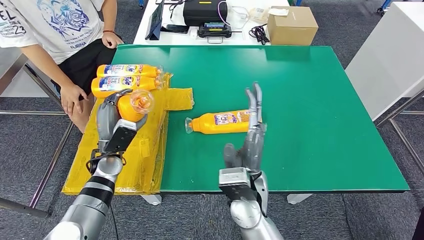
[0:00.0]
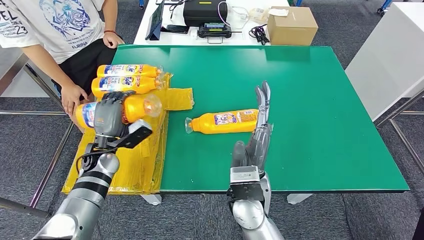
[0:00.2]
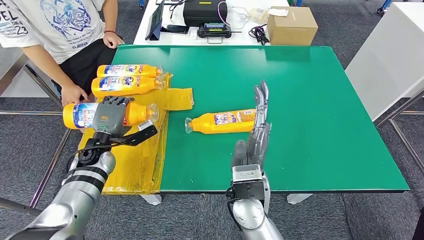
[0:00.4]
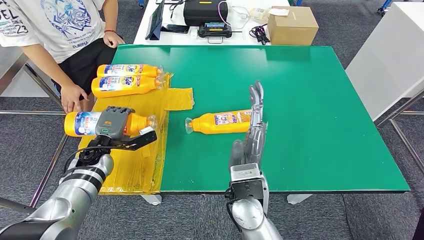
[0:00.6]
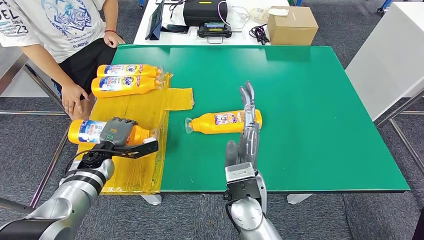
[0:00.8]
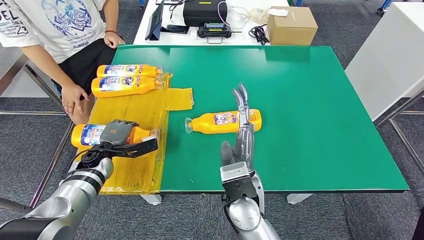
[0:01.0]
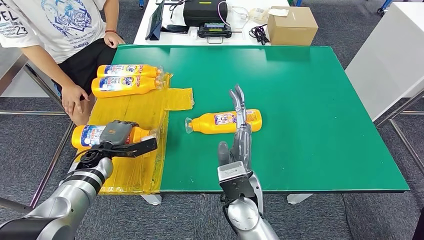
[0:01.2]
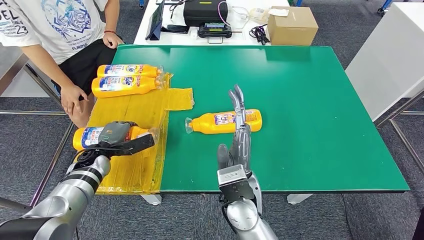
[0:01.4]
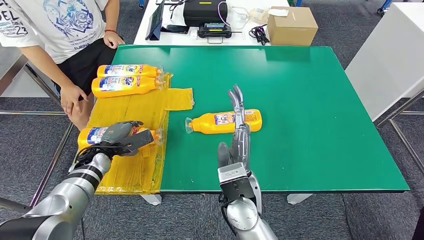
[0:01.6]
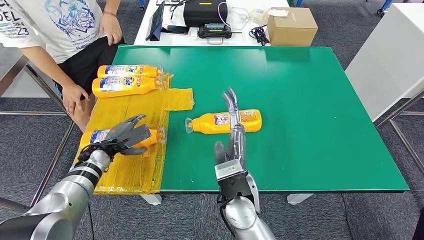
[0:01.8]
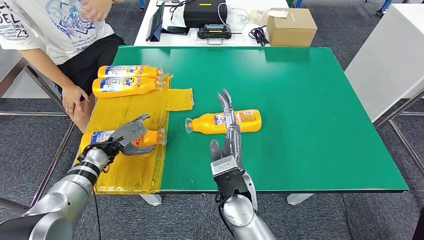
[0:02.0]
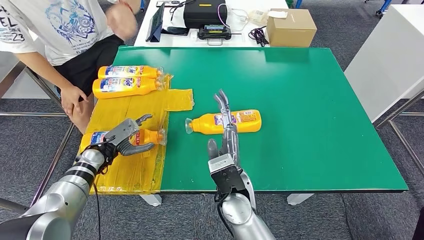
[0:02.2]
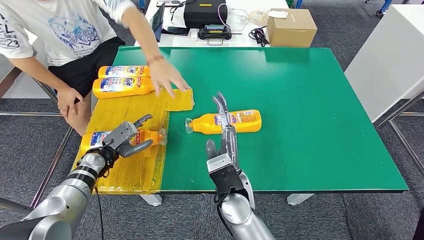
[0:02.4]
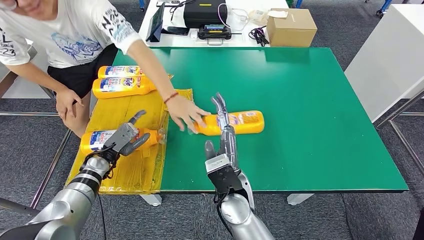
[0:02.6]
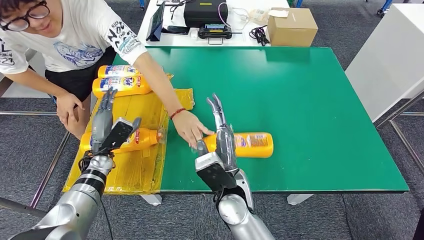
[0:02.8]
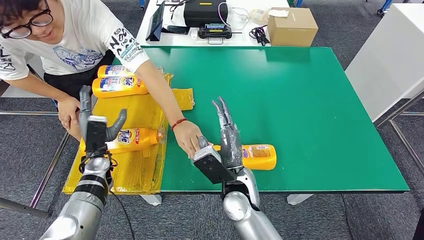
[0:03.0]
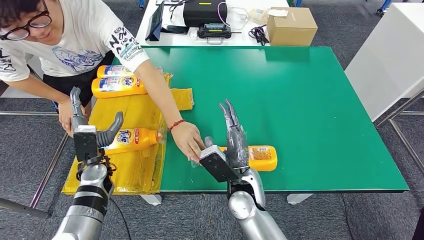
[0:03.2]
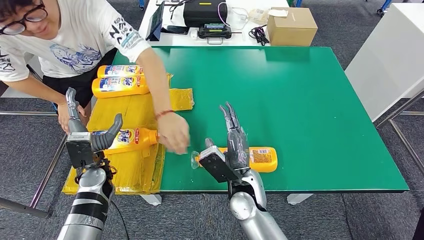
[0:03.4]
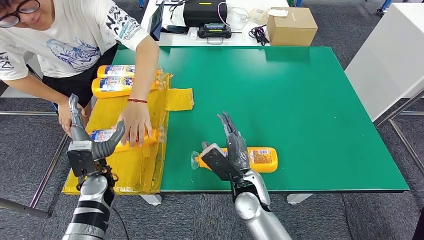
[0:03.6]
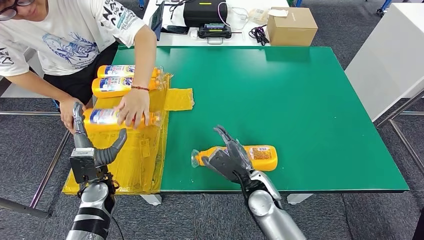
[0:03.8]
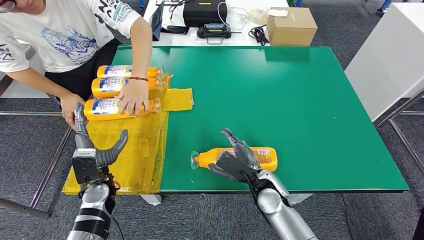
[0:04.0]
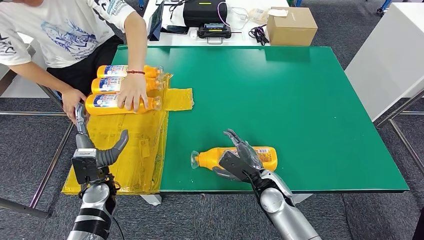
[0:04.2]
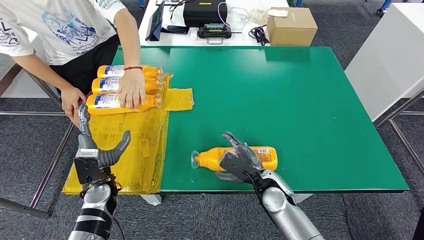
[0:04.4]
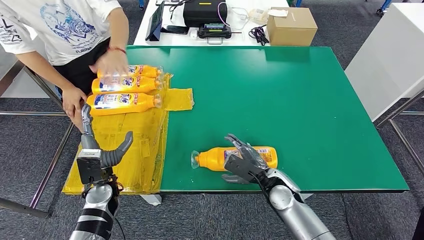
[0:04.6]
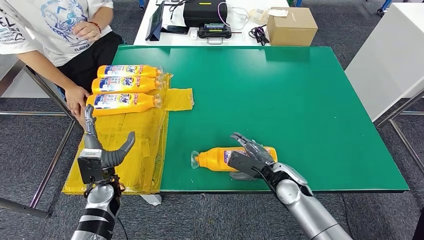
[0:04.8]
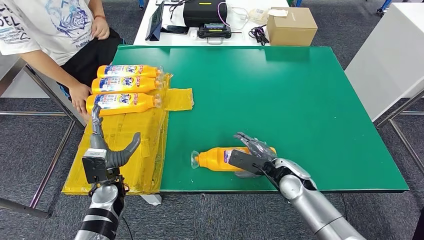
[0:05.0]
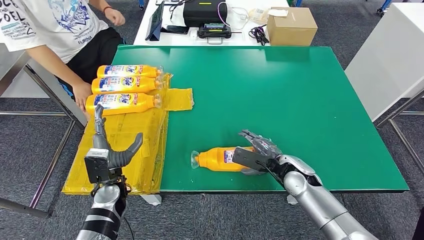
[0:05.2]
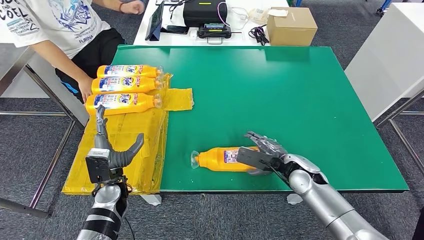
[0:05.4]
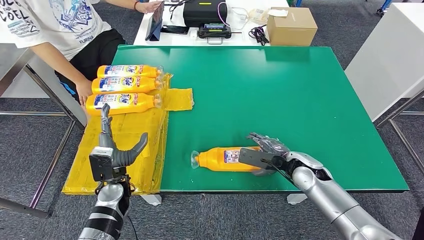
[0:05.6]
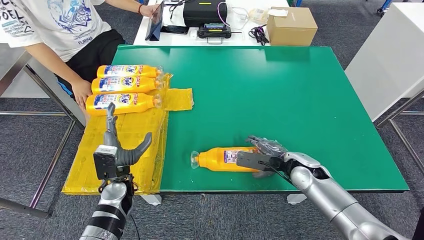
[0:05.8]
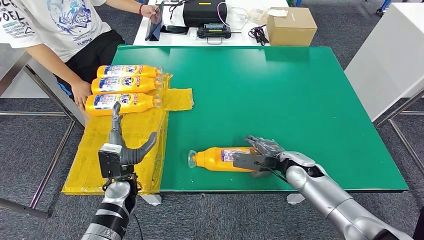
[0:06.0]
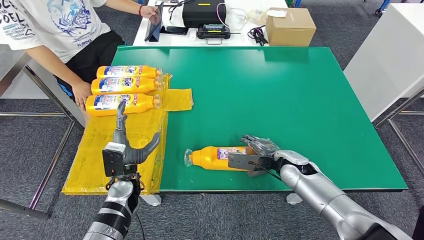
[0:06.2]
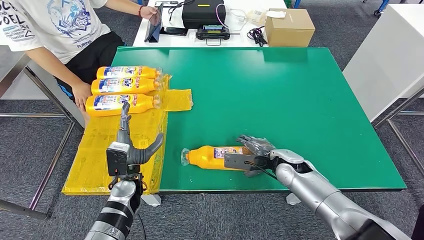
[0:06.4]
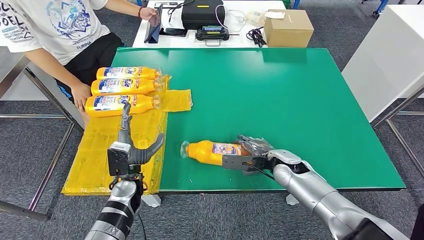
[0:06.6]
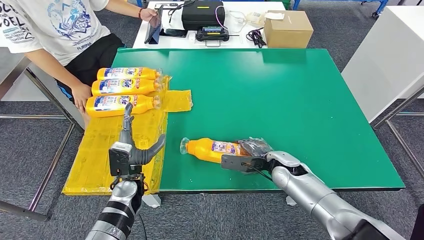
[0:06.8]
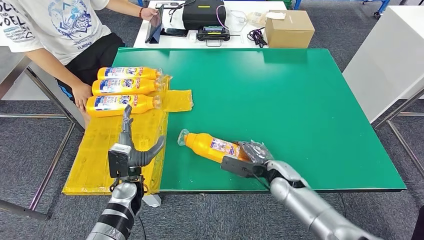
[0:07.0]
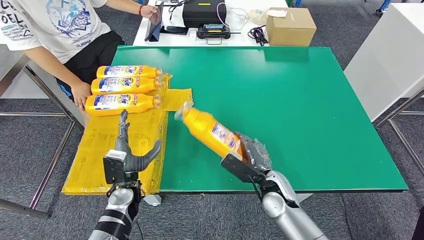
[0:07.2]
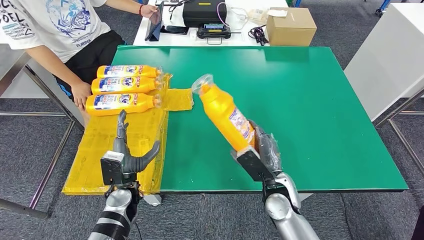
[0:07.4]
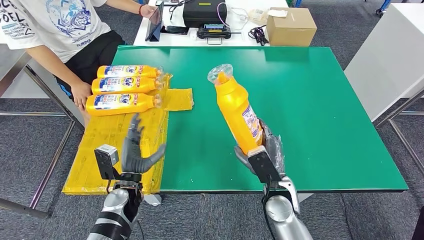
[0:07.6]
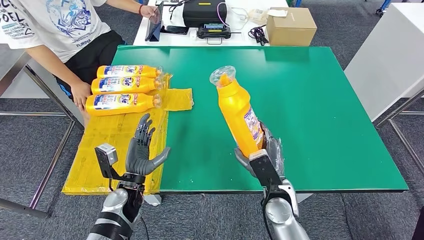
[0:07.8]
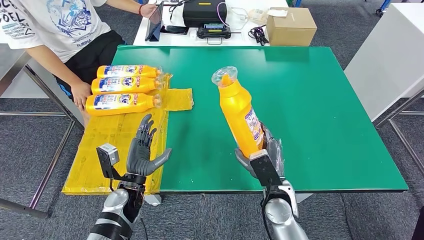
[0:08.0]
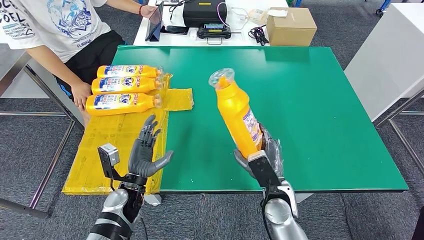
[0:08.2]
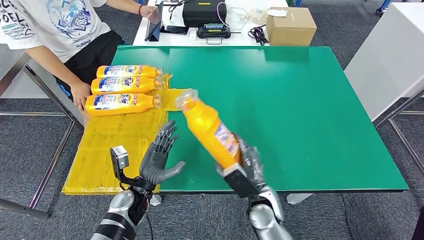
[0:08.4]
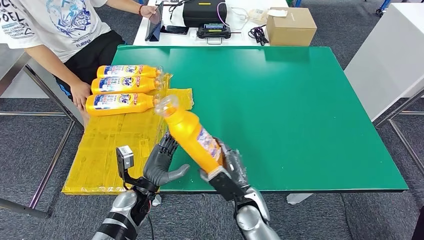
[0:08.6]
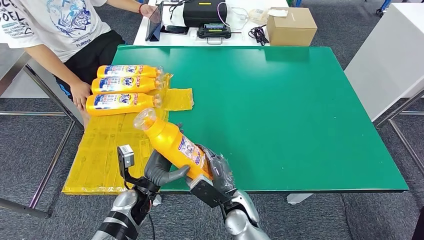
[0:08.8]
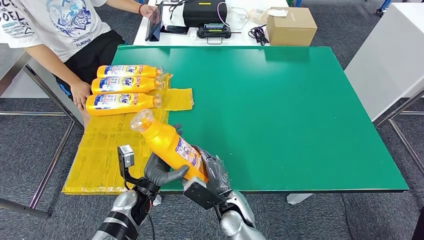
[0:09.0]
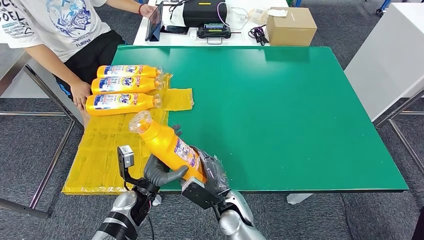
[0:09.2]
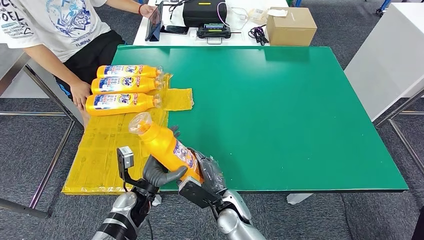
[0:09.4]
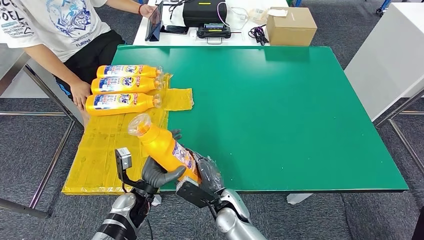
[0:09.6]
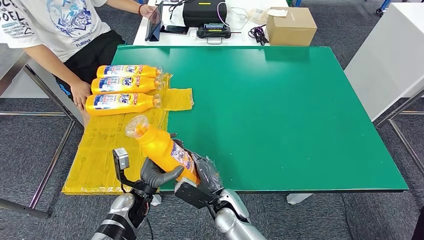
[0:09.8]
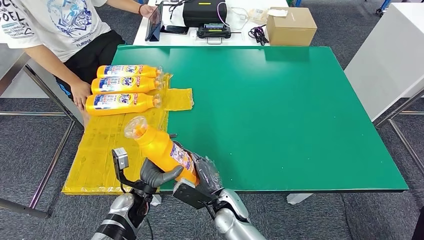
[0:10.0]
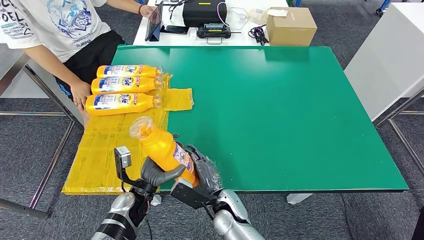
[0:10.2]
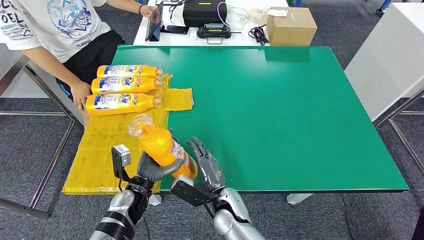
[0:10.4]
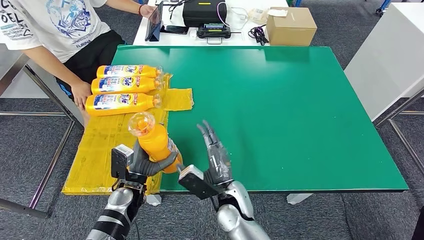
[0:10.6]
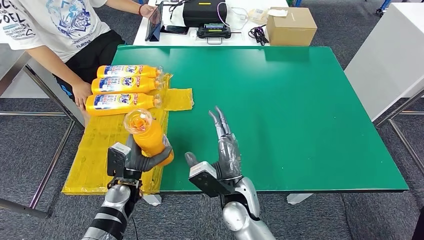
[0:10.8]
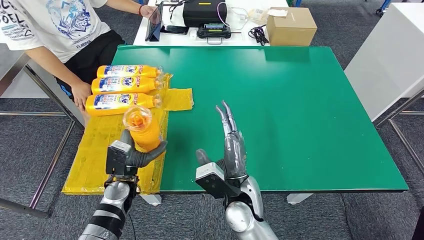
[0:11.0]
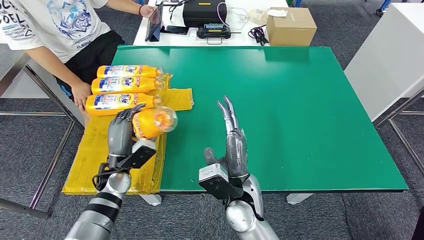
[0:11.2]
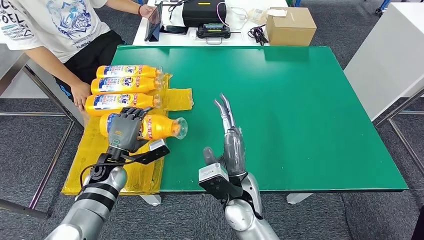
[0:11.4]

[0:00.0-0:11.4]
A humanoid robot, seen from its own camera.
Step, 0:00.0 to 0:02.0: Flip the fast-moving consumer goods bottle to the front side.
Step, 0:04.6 to 0:07.8: Pick up the fast-moving consumer goods bottle from the table.
0:00.0 to 0:01.4: The left hand moves to the left, some 5 cm.
0:07.2 to 0:08.6: The right hand heads to the left, covering some 10 cm.
0:08.6 to 0:10.0: The right hand is displaced to the left by approximately 5 cm.
0:10.0 to 0:11.4: The right hand goes roughly 10 cm upward, while the left hand heads forward, to the left and upward, covering some 10 cm.

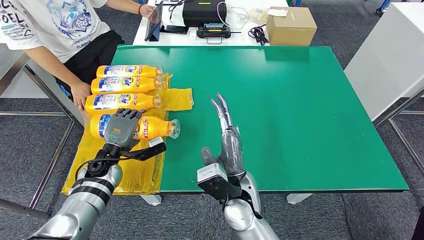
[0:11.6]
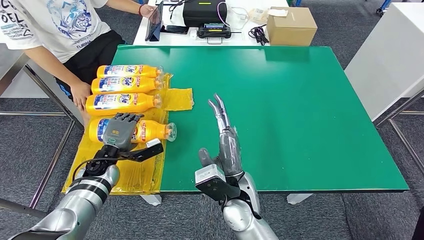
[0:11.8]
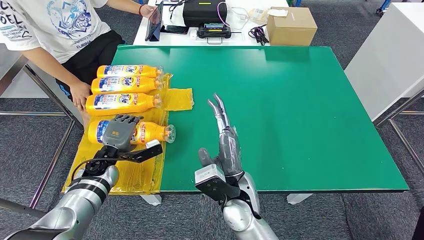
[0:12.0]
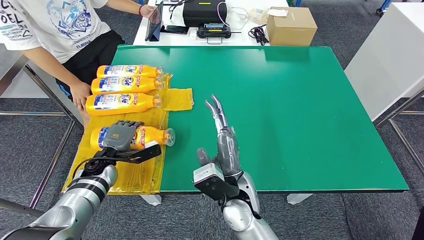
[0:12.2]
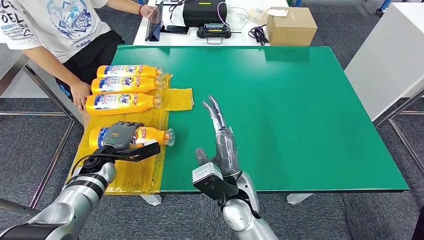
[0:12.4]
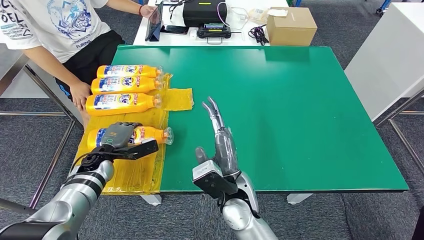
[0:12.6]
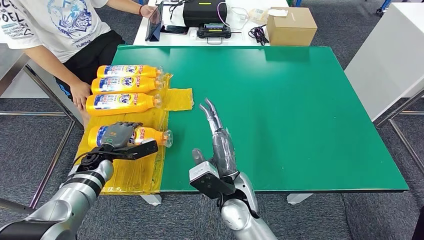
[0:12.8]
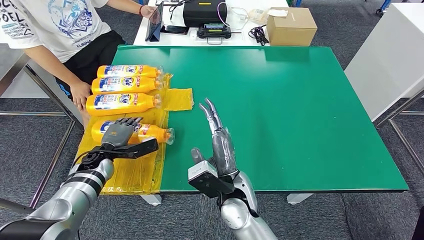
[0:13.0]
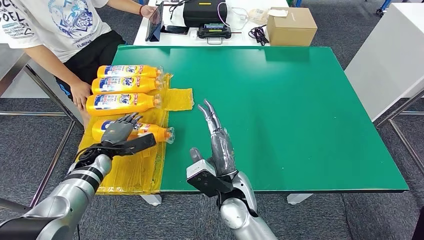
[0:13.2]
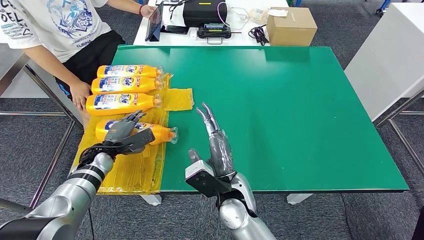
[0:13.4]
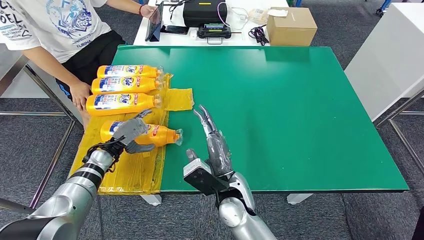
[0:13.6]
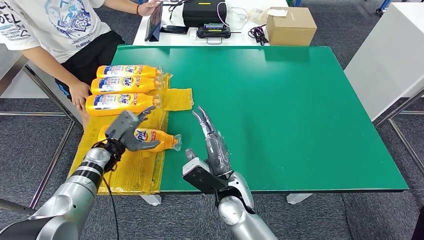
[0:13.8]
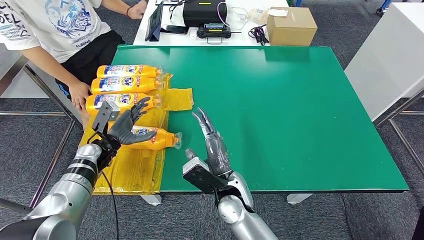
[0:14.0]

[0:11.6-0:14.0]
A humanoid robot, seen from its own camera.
Step, 0:11.6 to 0:14.0: Flip the fast-moving consumer goods bottle to the front side.

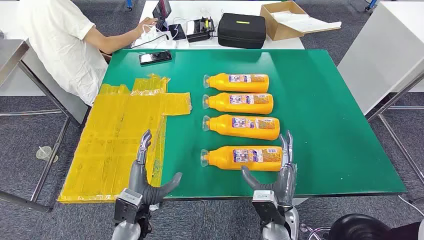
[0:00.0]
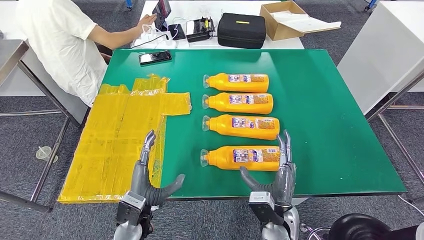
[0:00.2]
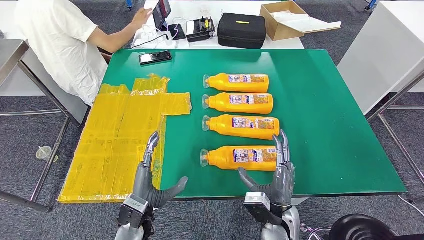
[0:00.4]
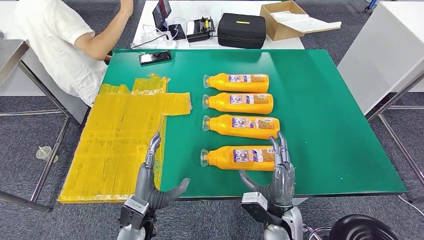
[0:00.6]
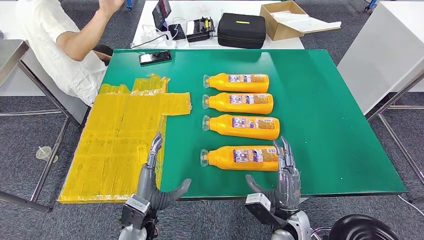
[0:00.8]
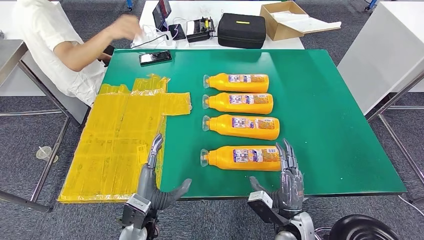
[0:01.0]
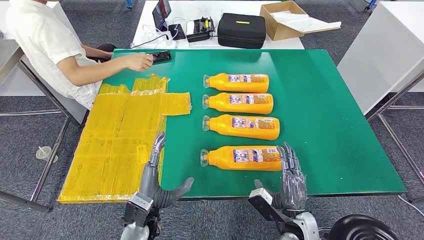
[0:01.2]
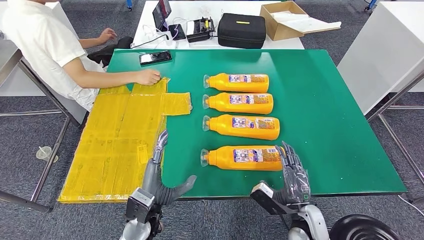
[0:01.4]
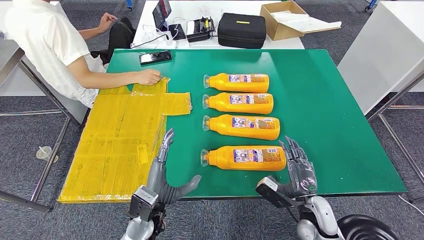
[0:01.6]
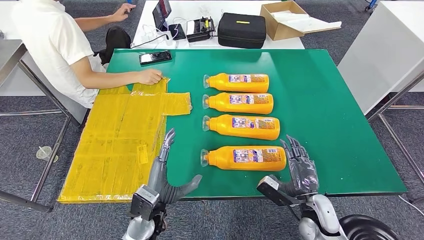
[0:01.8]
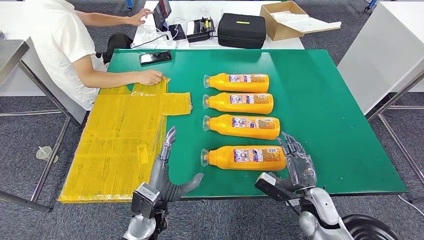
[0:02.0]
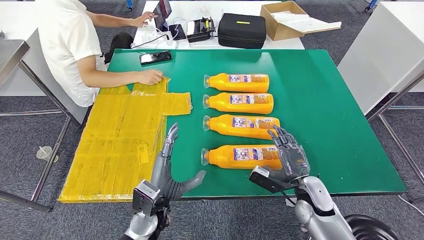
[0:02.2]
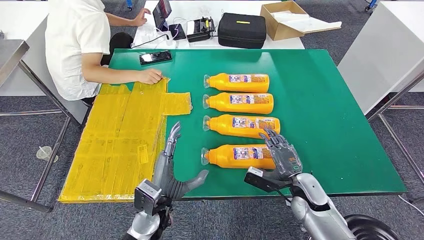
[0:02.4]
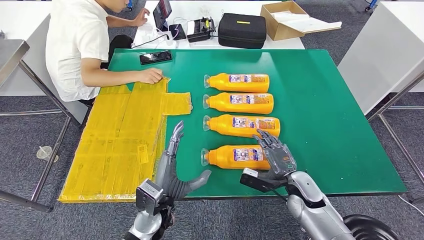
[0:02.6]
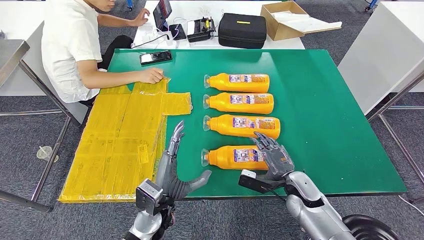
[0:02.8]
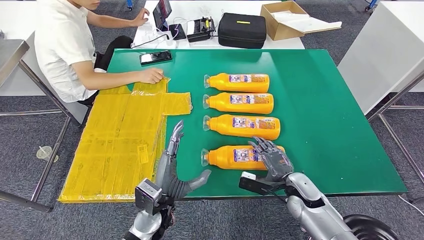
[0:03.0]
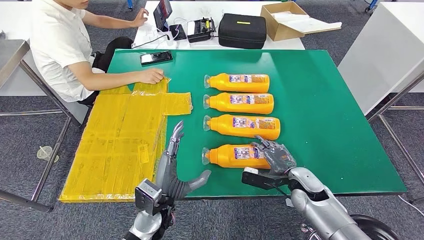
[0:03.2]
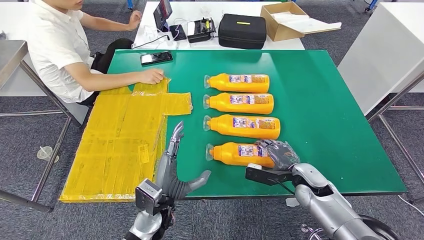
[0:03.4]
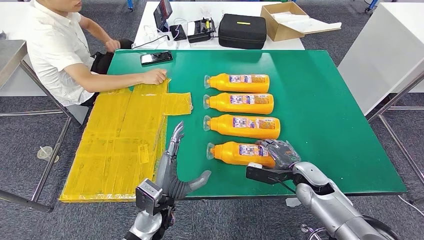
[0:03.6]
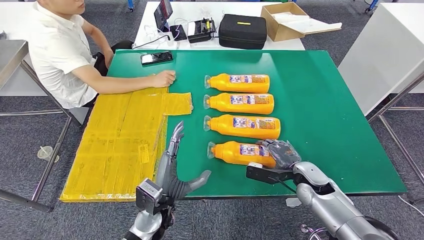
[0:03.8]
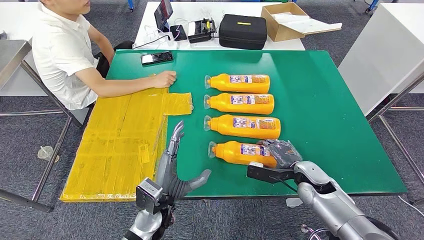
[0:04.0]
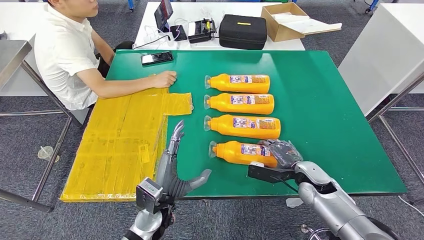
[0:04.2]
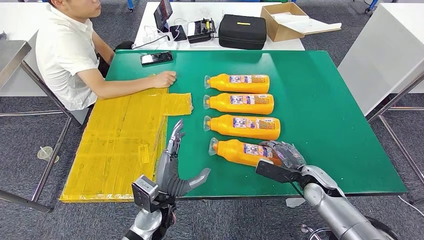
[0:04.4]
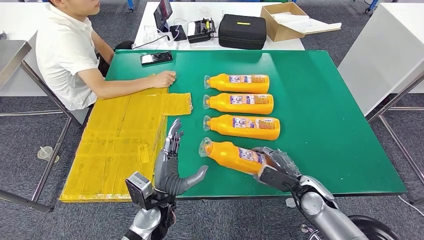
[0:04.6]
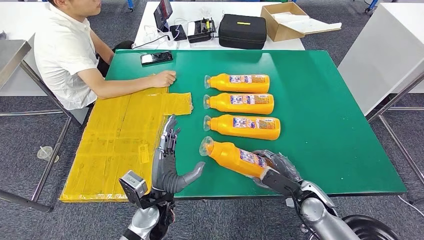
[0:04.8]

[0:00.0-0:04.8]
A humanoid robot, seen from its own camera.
0:01.6 to 0:03.2: The right hand heads forward, covering approximately 5 cm.
